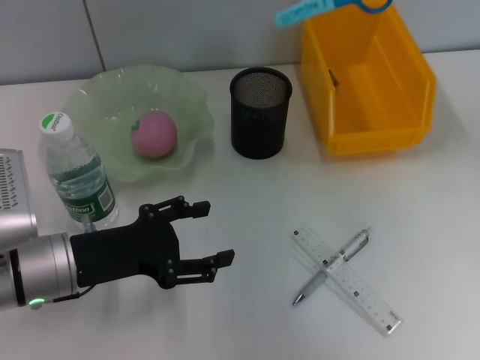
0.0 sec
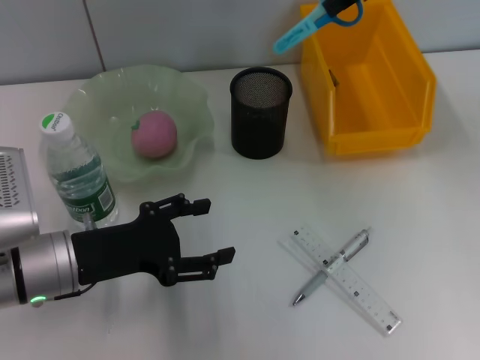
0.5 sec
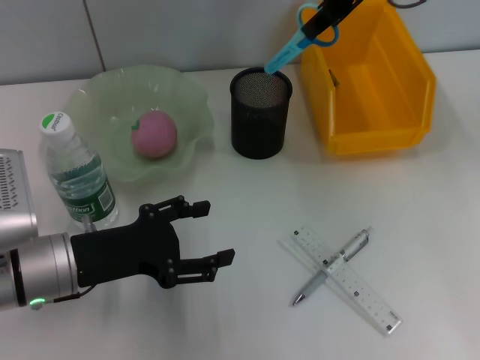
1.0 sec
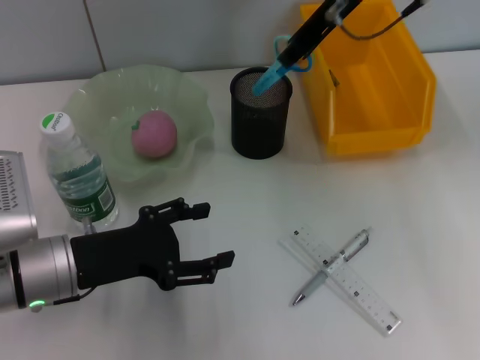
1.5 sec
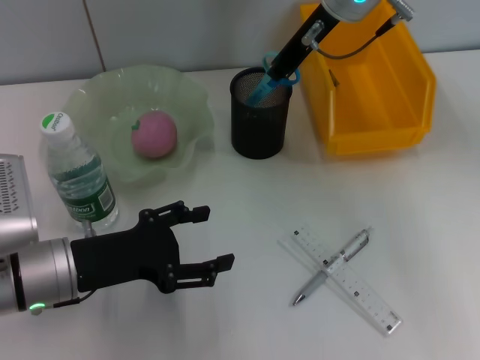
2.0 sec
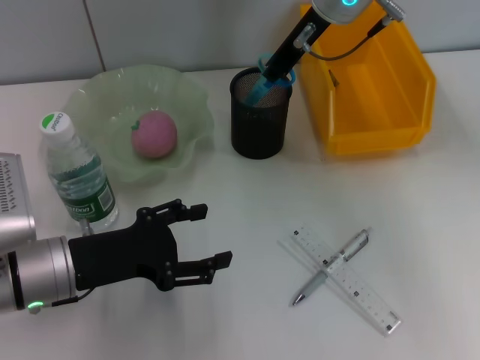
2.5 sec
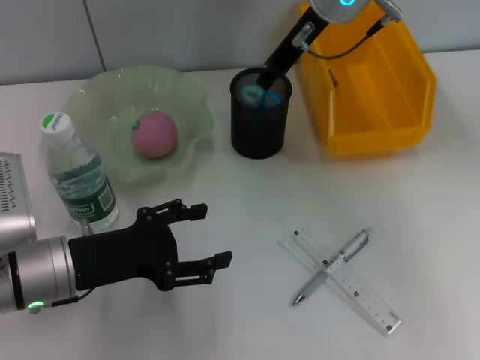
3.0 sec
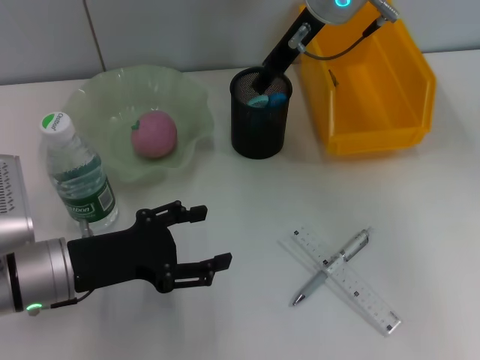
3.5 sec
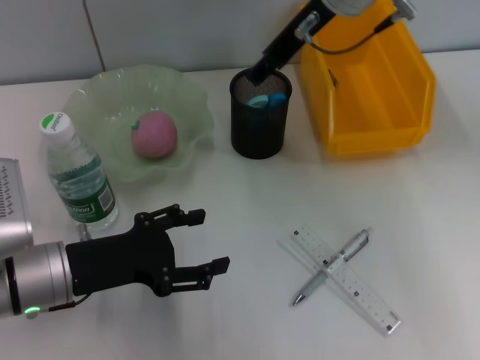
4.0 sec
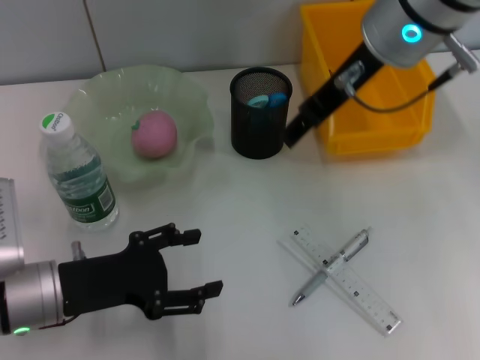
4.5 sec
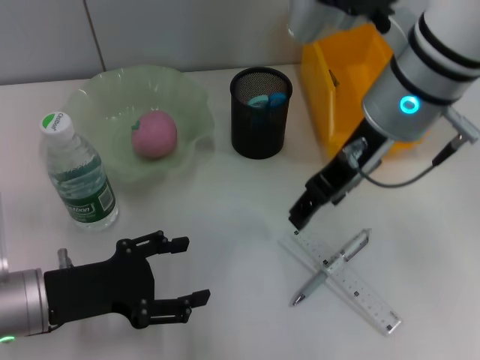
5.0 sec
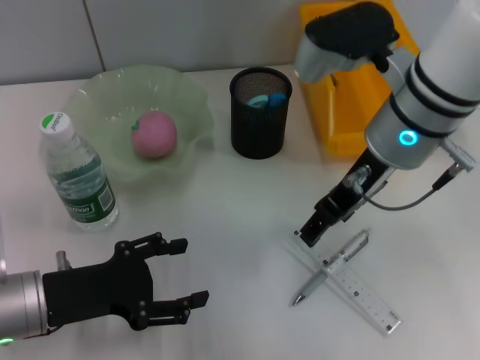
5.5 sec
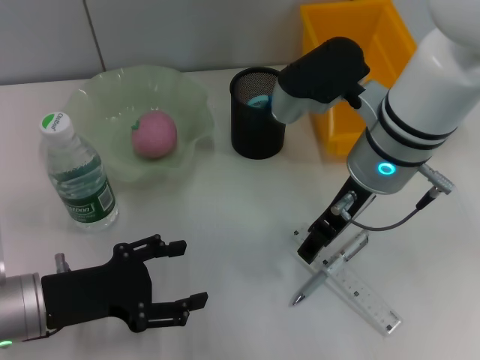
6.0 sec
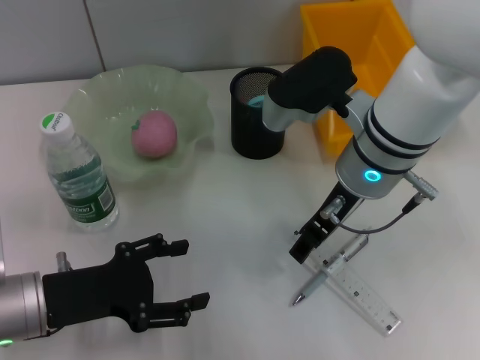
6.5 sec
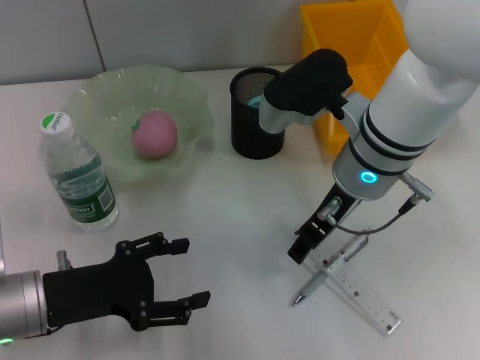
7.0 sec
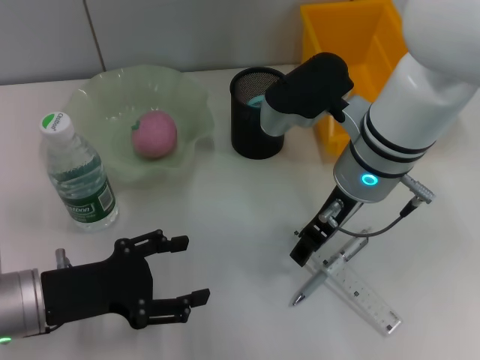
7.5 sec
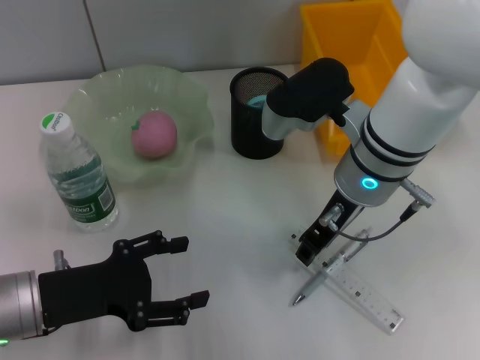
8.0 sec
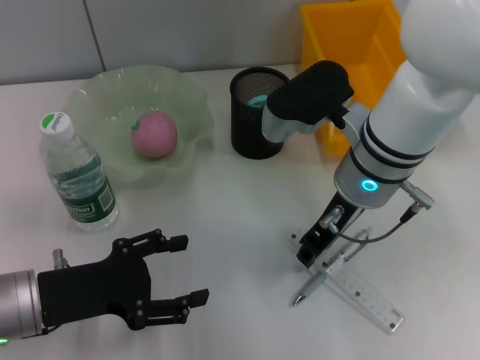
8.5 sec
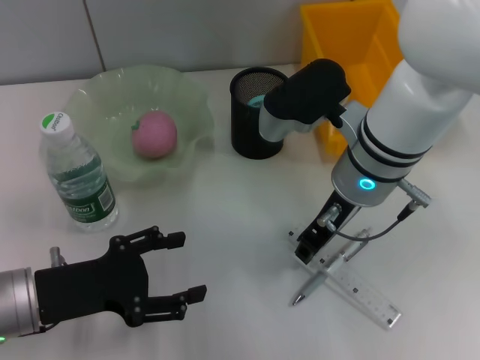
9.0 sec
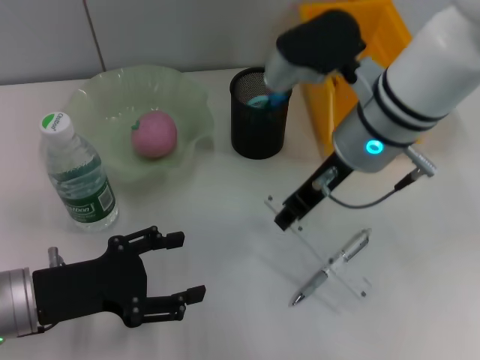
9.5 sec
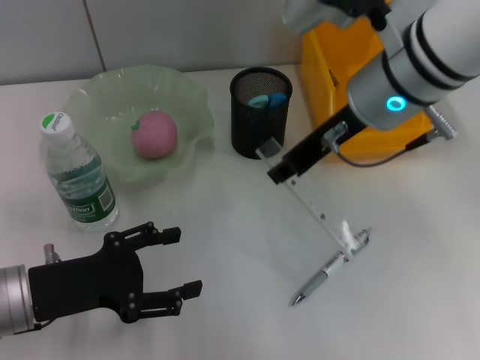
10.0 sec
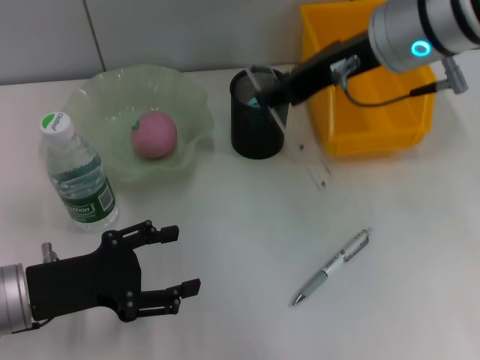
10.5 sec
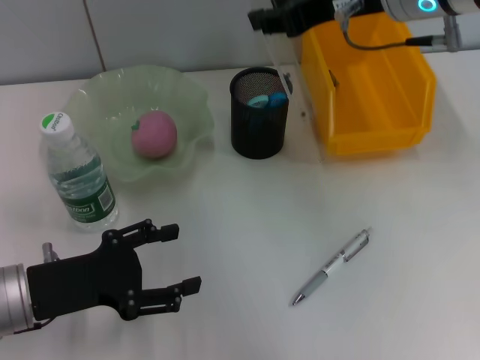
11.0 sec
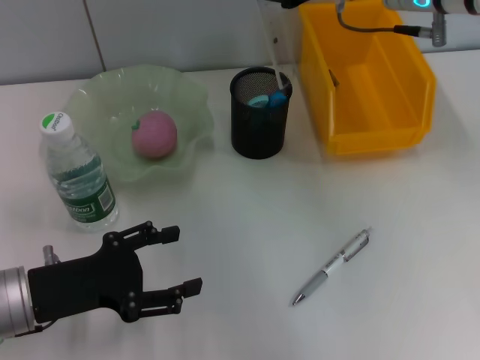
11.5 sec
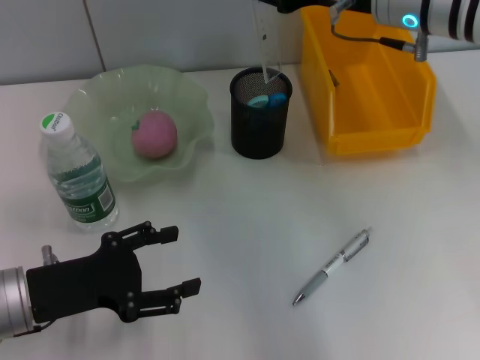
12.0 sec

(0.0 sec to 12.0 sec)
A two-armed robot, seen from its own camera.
Step, 0.0 sec - 3.0 sec: Place the blue scissors into the pen holder with the right hand.
Step, 3.5 sec - 8.0 sec: Grab the ruler with the right hand.
0.0 sec - 2.0 sec: The right gripper is displaced to the left, downward and forward by roughly 15 cm.
2.0 sec - 4.0 sec: The right gripper opens.
4.0 sec - 6.0 sec: The right gripper moves downward and backward, roughly 15 cm.
6.0 sec - 8.0 sec: There are only small adjustments of the grippers.
8.0 sec - 10.0 sec: The right gripper shifts some 10 cm upward.
10.0 sec - 12.0 sec: The right gripper changes place by about 5 cm.

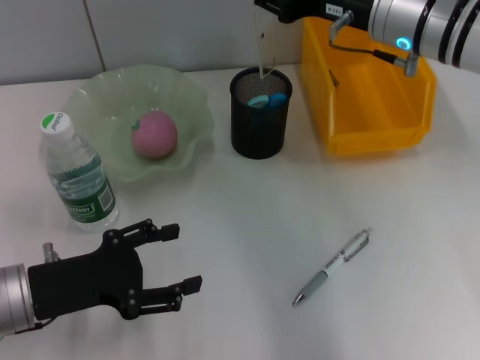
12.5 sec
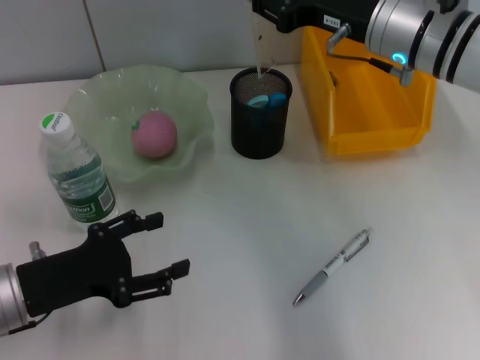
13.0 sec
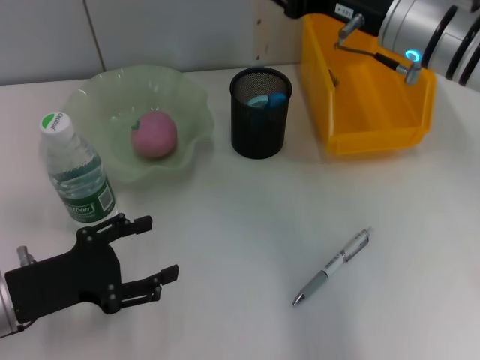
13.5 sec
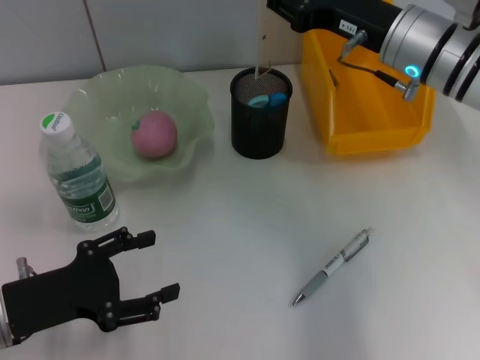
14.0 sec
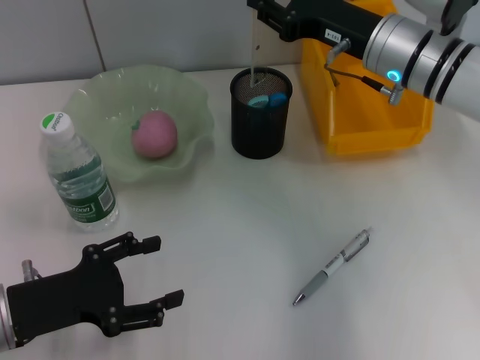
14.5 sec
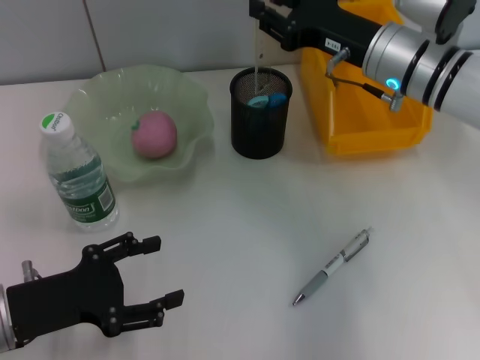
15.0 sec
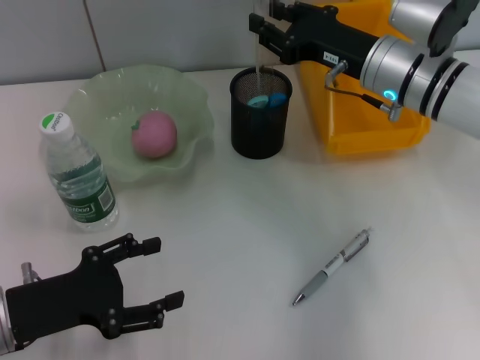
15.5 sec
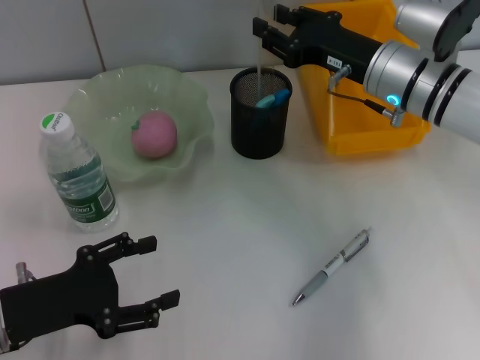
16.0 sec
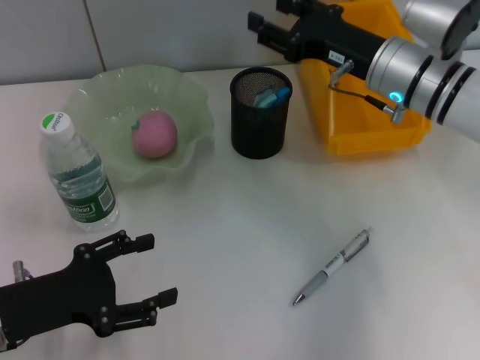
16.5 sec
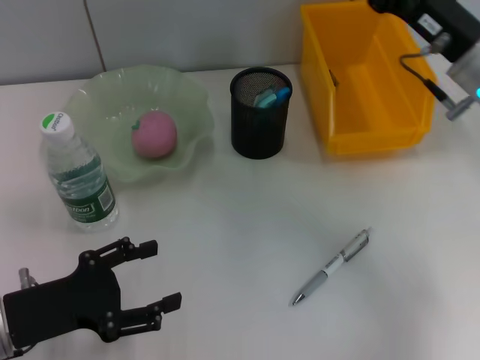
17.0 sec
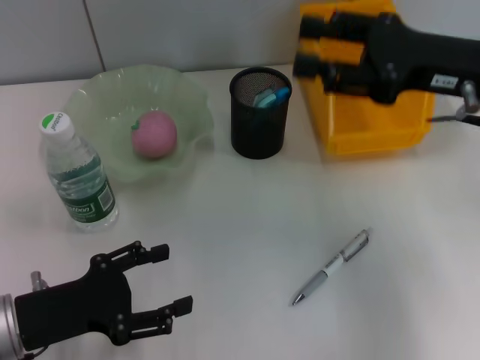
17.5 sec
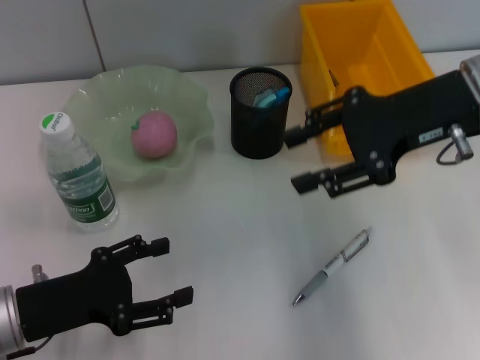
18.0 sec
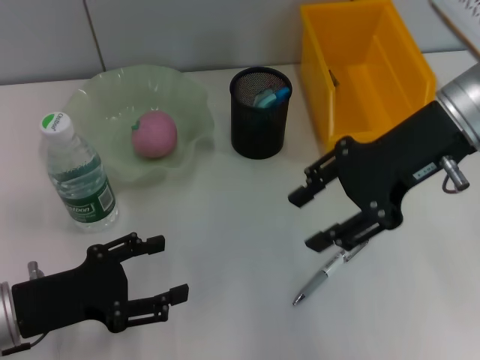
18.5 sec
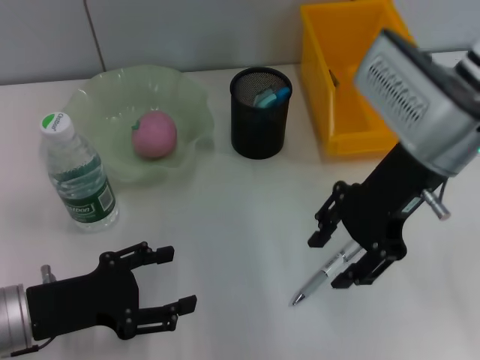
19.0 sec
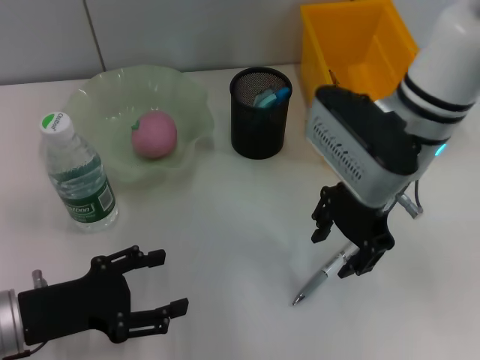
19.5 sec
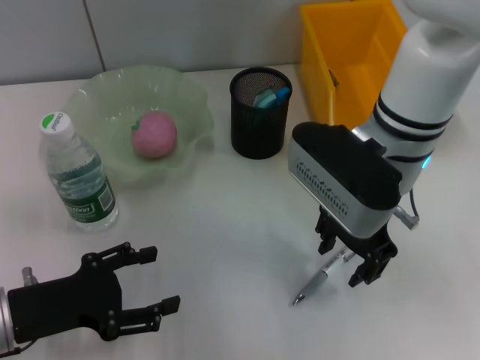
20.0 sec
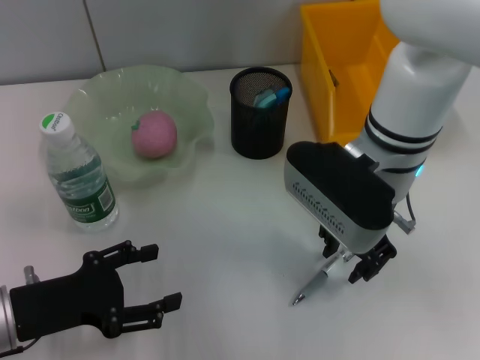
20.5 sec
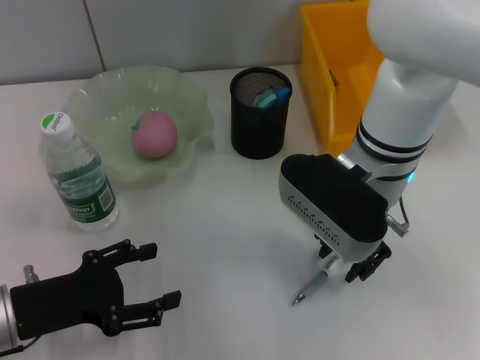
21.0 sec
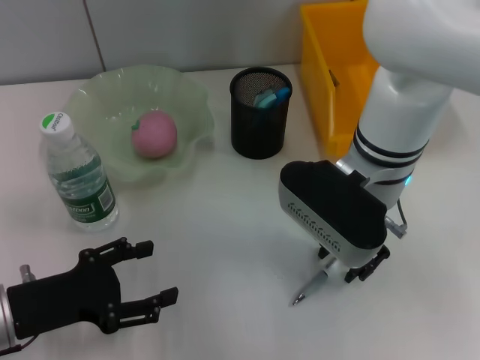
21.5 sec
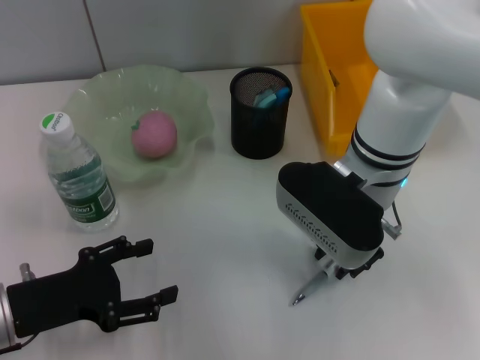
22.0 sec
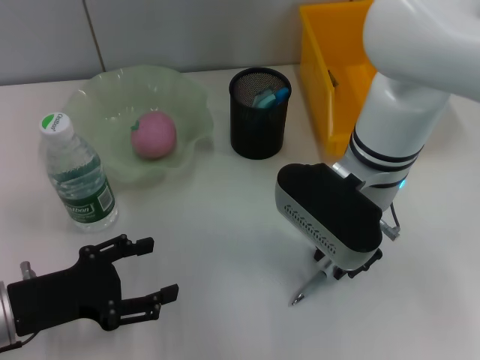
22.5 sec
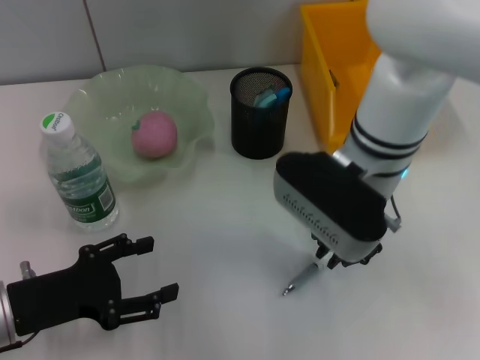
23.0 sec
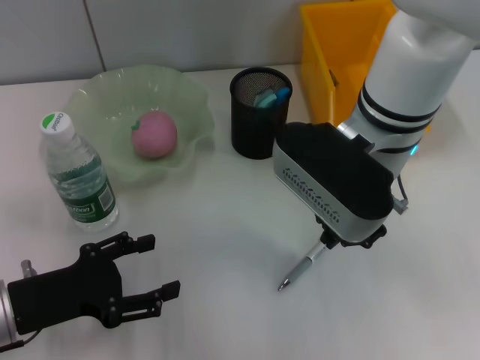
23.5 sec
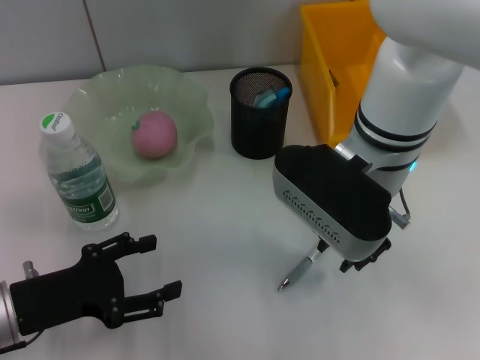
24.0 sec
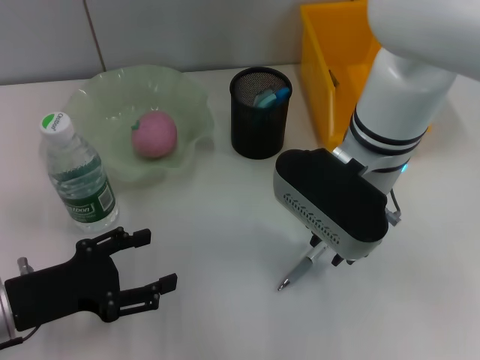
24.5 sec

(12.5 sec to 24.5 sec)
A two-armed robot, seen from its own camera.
Step, 12.5 sec - 16.0 sec: Place the ruler into the pen holder with the right hand.
12.5 sec - 14.5 sec: The grippers make only small movements.
14.5 sec - 16.5 sec: The grippers stay close to where they were, moving slightly.
16.5 sec - 18.5 sec: The right gripper travels upward and backward by roughly 10 cm.
18.5 sec - 20.5 sec: The right gripper shifts roughly 10 cm to the left and downward.
20.5 sec - 22.5 sec: The grippers move only a little.
22.5 sec - 24.5 sec: The right gripper closes, then reopens.

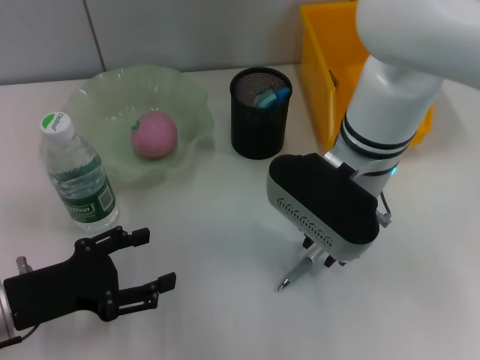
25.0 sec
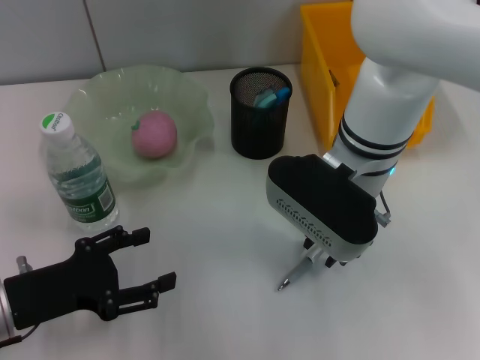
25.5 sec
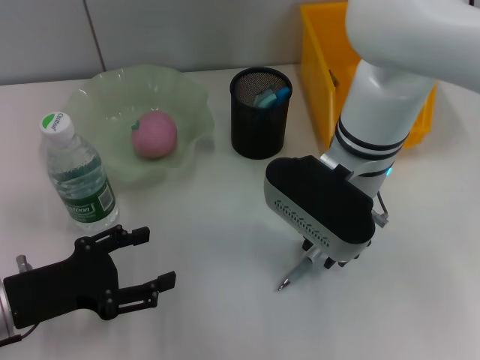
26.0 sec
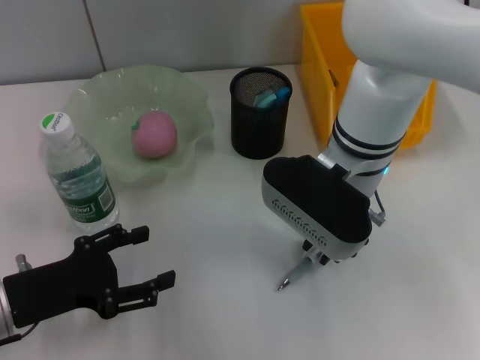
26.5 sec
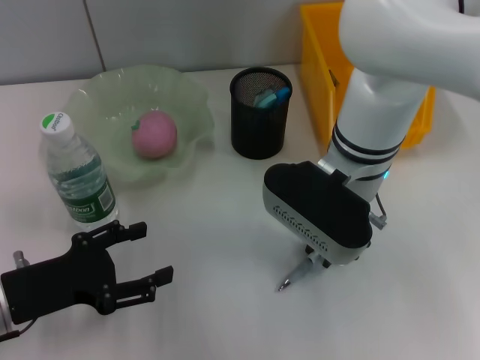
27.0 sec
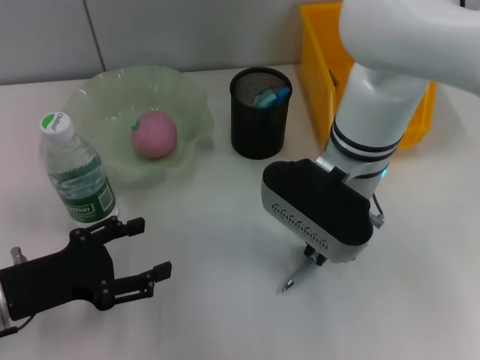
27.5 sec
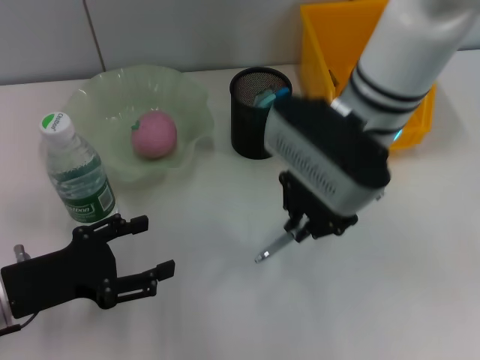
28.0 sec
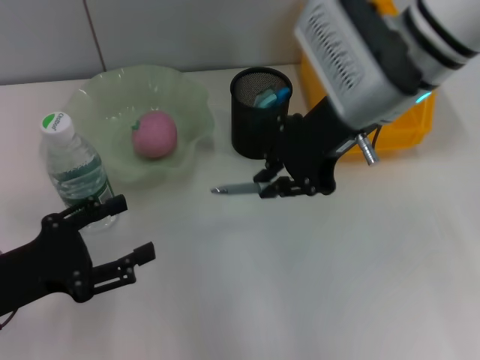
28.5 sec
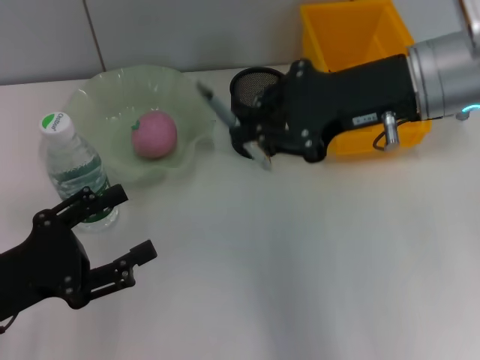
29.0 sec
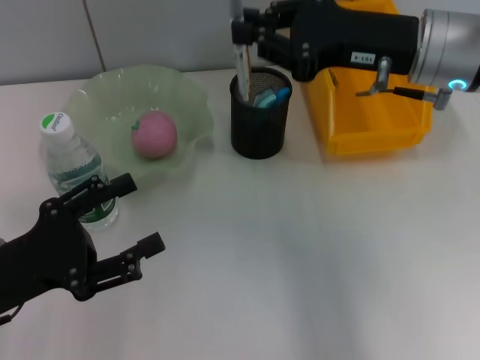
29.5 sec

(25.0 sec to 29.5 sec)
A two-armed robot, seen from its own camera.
Step, 25.0 sec - 27.0 sec: Grab the gray spring-action pen with the right hand.
25.0 sec - 27.0 sec: Both grippers stay about where they are.
27.0 sec - 29.5 sec: The right gripper is displaced to the right and upward by about 10 cm.
